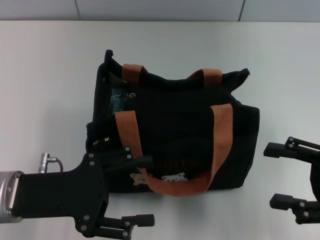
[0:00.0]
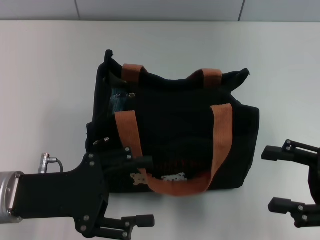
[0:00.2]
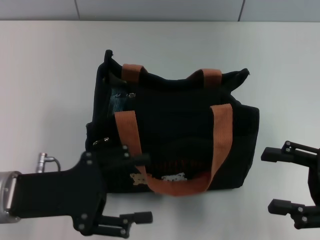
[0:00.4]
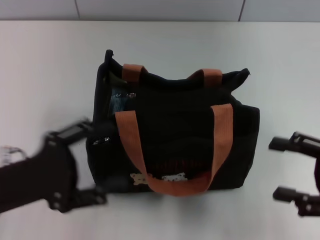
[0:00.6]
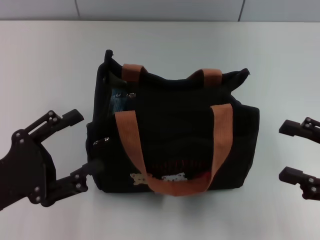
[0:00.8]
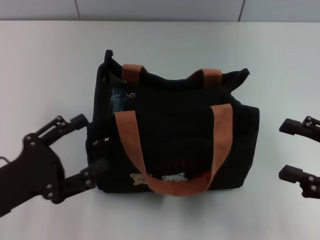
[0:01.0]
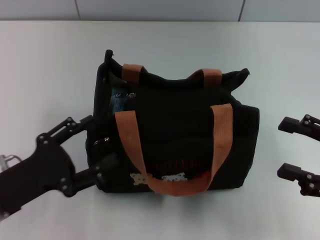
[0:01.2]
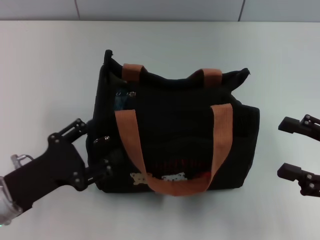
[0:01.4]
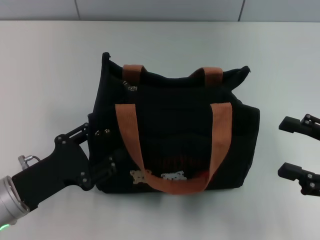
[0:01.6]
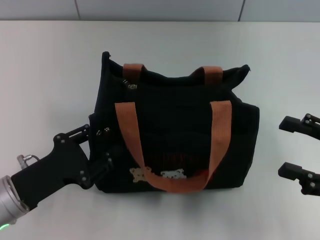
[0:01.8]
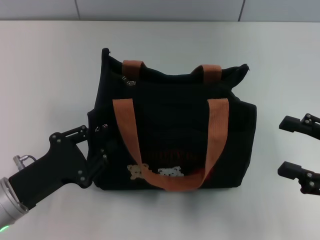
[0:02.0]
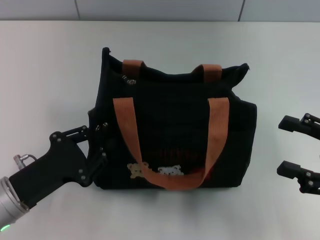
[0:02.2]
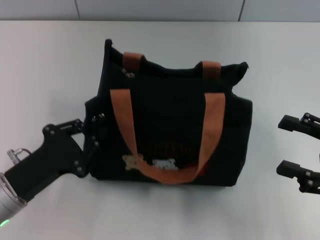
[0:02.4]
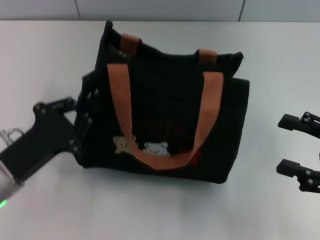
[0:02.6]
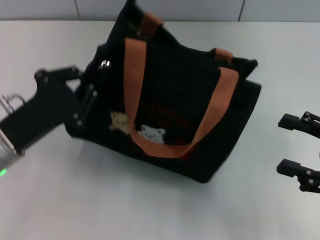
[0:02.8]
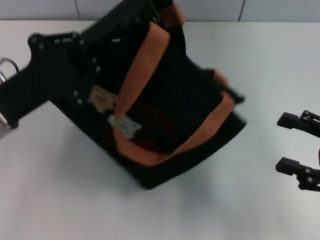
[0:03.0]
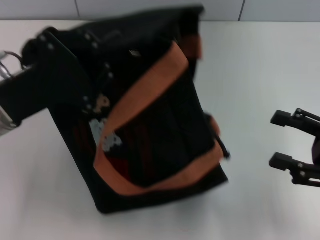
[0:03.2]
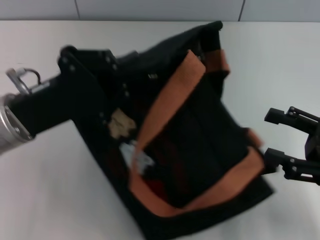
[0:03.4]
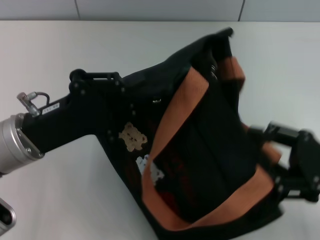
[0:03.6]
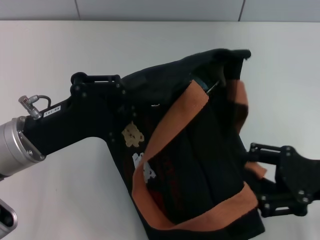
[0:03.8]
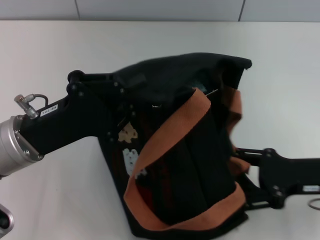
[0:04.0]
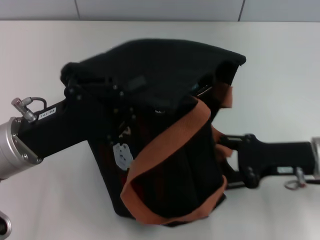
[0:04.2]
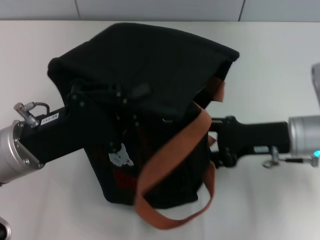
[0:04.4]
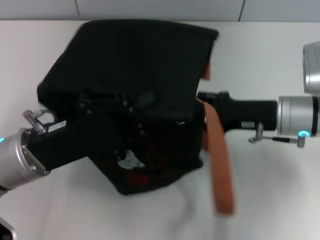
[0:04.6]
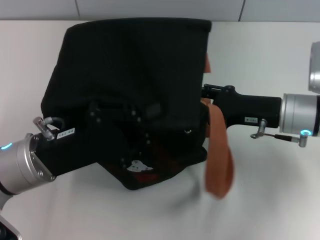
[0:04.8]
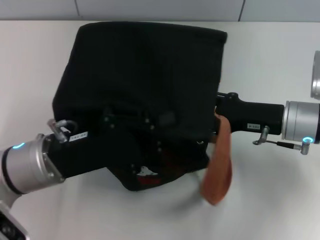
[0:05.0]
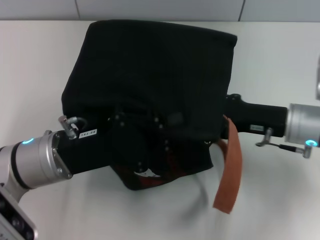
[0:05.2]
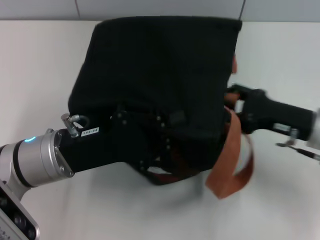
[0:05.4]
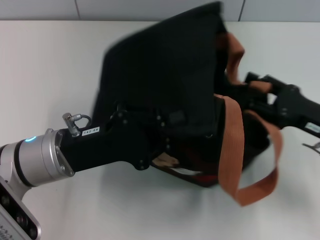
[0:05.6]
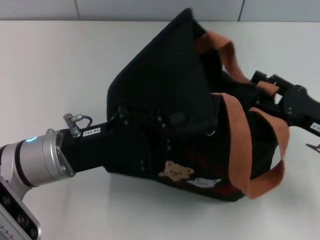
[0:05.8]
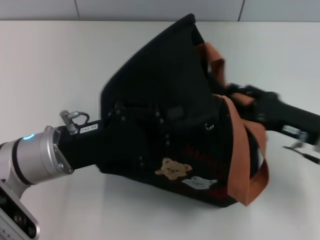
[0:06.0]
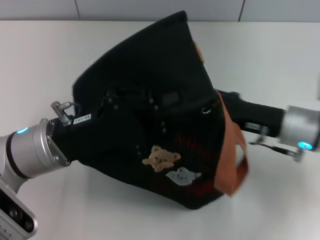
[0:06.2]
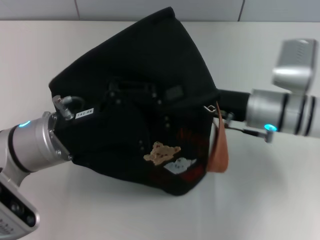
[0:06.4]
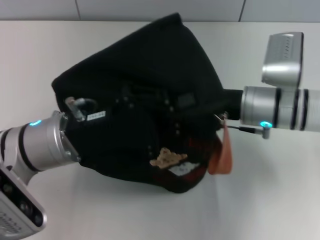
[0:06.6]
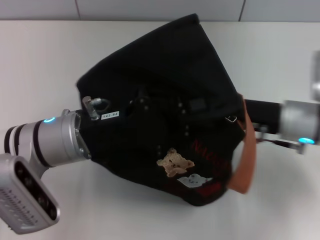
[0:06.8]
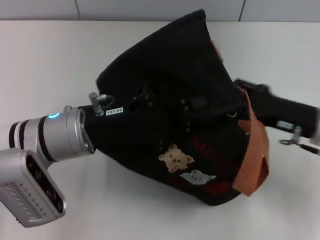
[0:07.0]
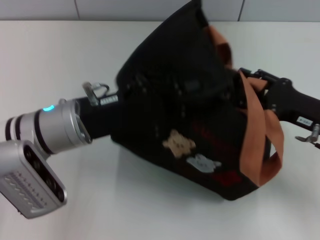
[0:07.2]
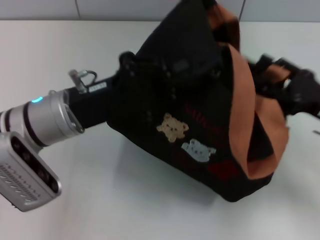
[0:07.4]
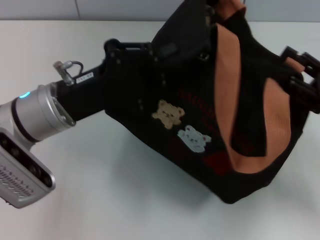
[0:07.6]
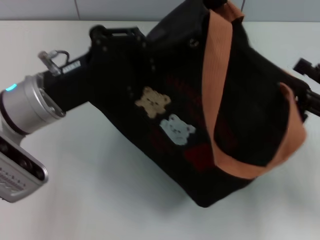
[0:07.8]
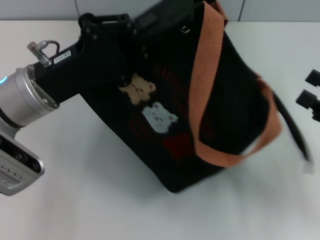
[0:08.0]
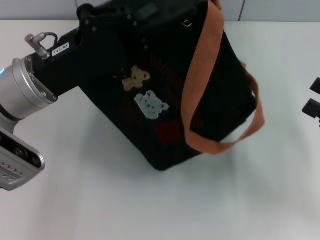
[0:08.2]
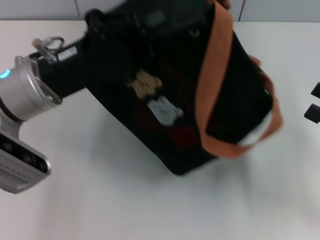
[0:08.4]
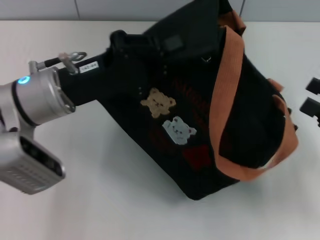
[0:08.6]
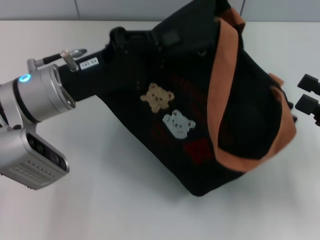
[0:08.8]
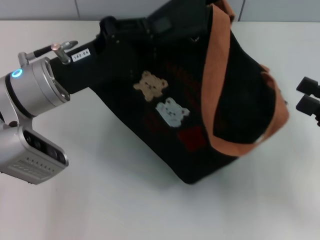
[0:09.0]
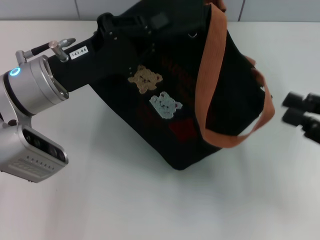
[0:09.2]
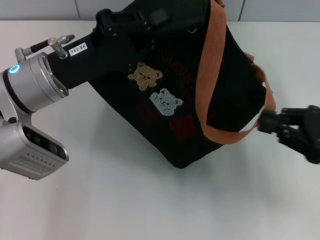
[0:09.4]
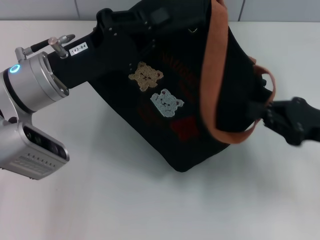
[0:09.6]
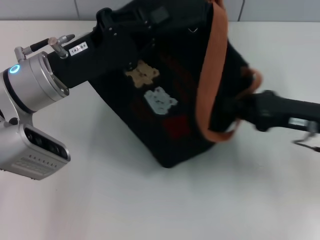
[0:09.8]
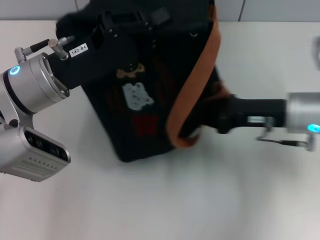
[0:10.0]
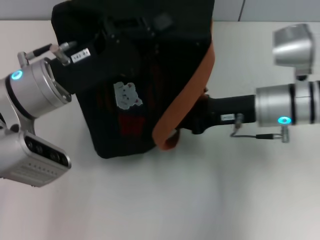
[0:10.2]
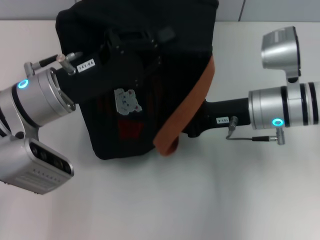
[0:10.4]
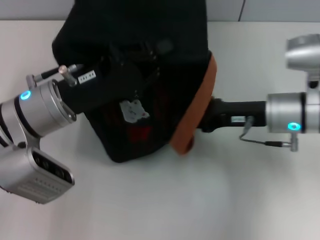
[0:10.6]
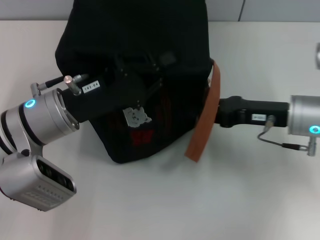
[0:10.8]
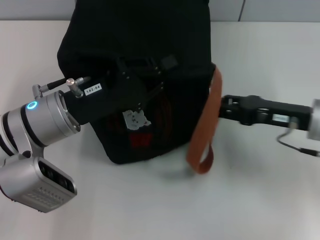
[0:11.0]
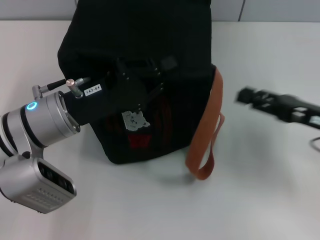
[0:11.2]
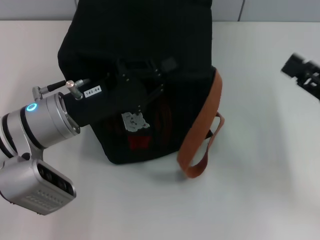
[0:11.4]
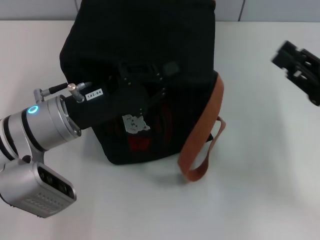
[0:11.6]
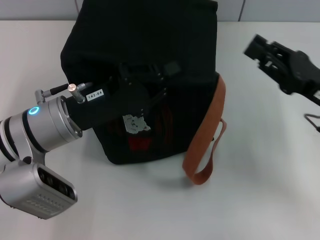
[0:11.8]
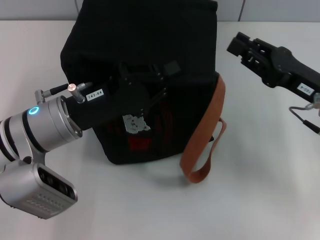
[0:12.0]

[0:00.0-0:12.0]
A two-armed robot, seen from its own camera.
0:00.0 to 0:01.6: The left gripper heads downward, covering roughly 5 cm.
0:01.6 to 0:03.0: The left gripper travels upward and forward by some 10 cm, and closes up.
0:03.0 to 0:04.4: The right gripper moves to the left and forward, about 15 cm.
0:06.0 to 0:07.6: The right gripper moves to the right, some 5 cm.
0:09.0 to 0:10.4: The right gripper moves to the left and forward, approximately 20 cm, and closes up.
0:10.4 to 0:12.0: The right gripper travels to the right by approximately 10 cm, and opens its fingers.

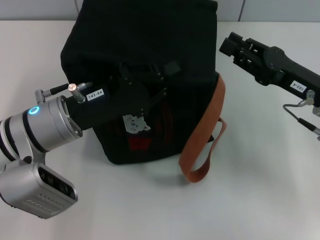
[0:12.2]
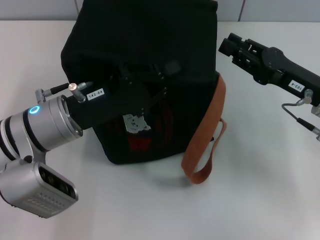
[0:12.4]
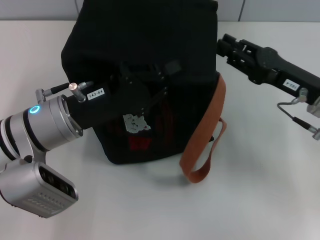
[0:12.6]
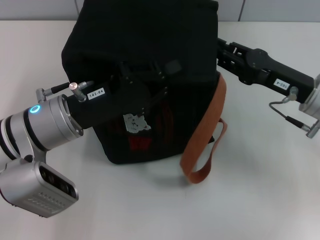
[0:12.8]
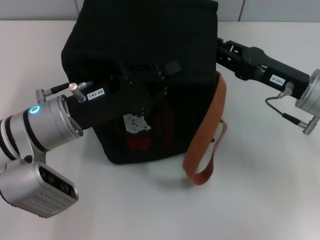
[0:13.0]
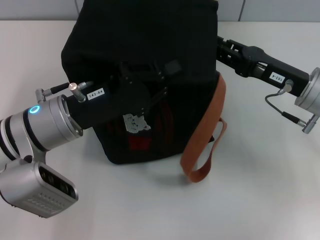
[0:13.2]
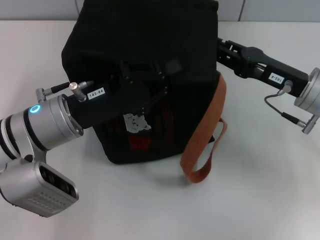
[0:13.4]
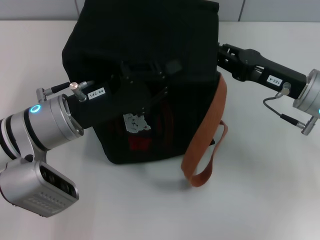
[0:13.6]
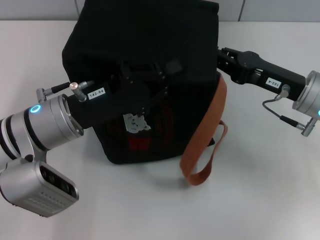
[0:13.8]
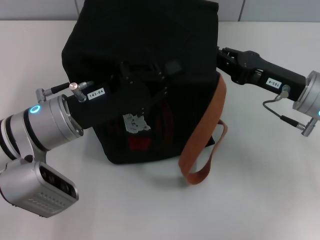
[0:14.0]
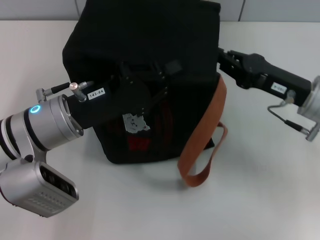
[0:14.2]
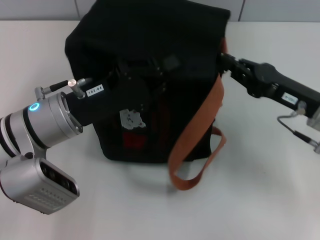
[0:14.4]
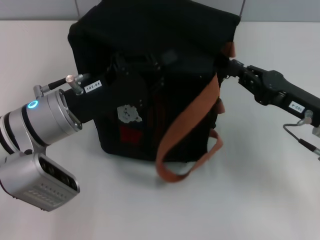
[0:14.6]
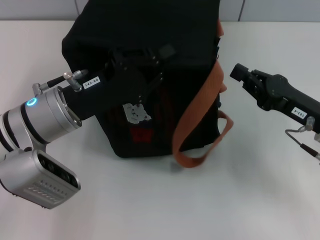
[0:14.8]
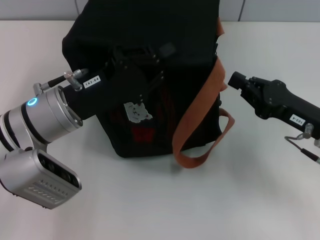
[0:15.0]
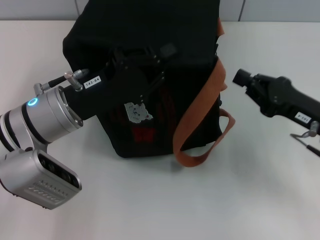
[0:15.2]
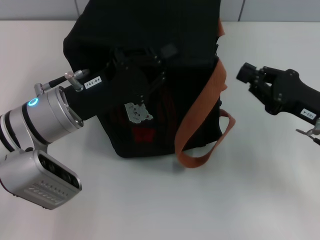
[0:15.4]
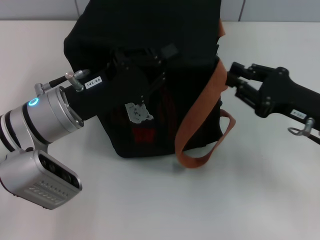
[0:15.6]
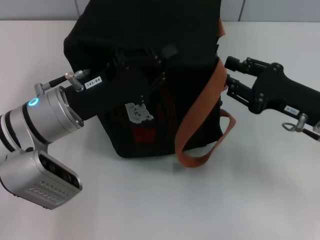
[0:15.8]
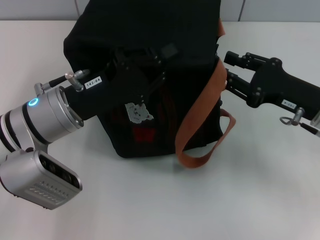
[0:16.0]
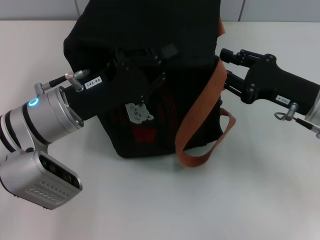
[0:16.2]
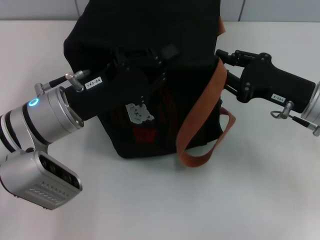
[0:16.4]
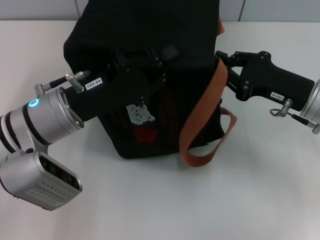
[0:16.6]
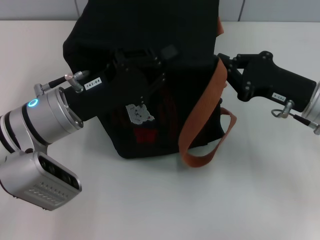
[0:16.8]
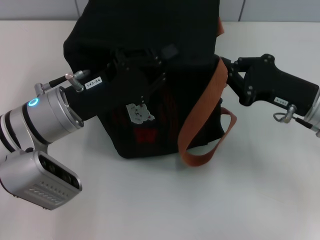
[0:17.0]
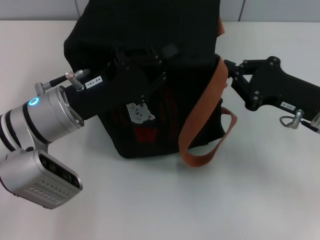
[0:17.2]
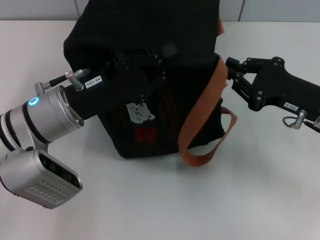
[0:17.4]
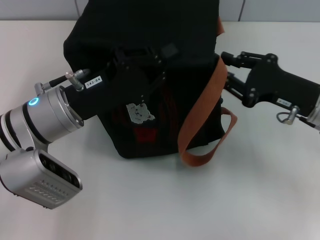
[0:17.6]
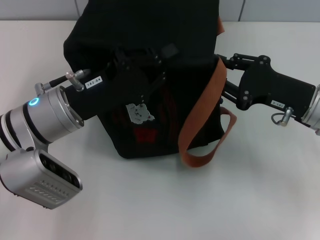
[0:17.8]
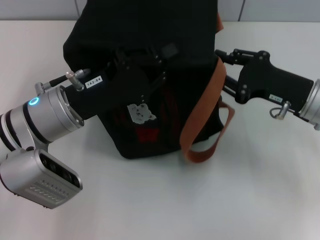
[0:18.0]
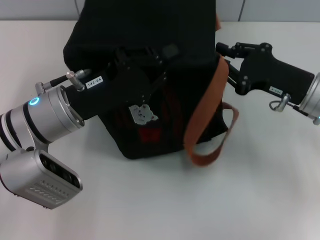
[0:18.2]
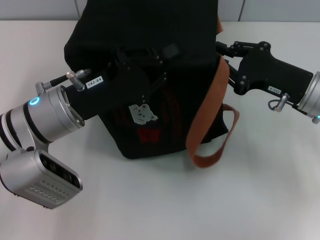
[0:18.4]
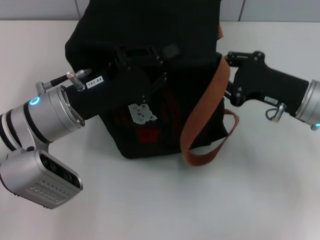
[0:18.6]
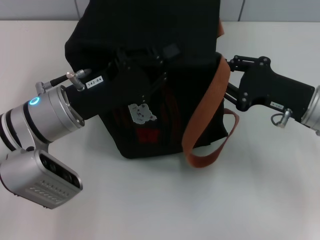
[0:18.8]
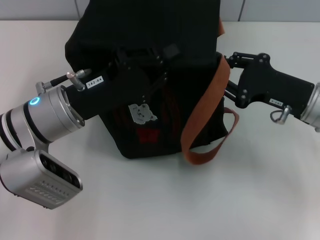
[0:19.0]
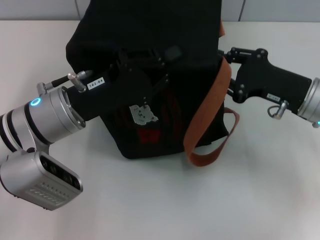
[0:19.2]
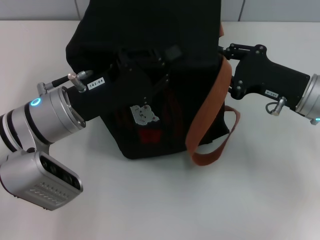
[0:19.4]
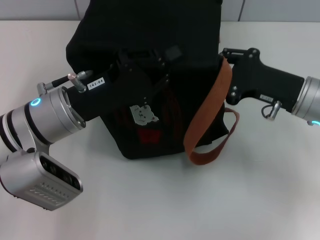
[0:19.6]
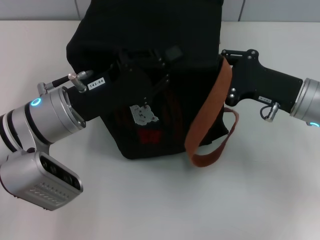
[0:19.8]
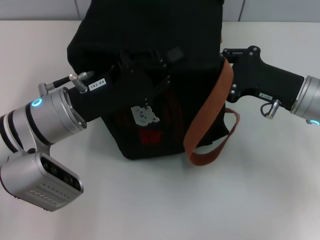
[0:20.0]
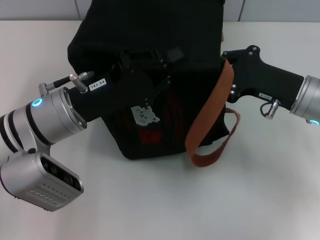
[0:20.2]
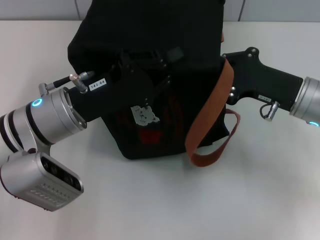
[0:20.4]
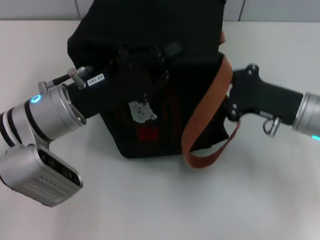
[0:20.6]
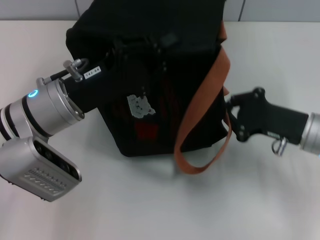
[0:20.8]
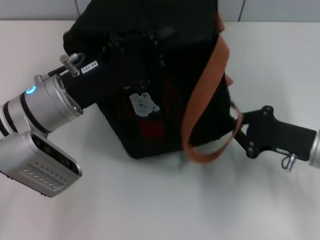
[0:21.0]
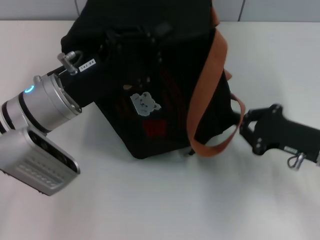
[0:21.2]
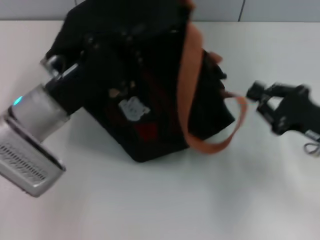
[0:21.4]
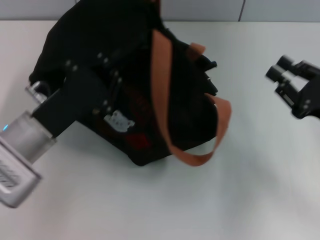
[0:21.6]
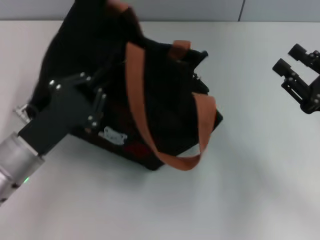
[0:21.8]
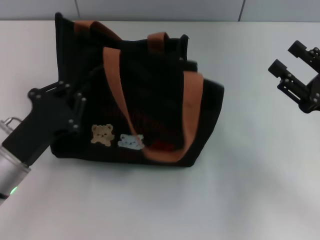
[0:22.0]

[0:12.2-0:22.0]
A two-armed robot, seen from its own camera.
Step, 0:12.2 to 0:21.2: Pull open the zipper with your right hand.
0:12.2 to 0:13.6: There are only small adjustments of the grippers.
0:13.6 to 0:15.0: The right gripper is displaced backward by about 5 cm, and closes its fingers.
0:15.0 to 0:16.4: The right gripper opens its fingers.
0:16.4 to 0:17.8: The right gripper closes, then reopens.
0:17.8 to 0:19.2: The grippers stay close to where they were, moving slightly.
0:19.2 to 0:20.6: The right gripper closes up.
0:20.6 to 0:22.0: The left gripper heads to the left, backward and downward, covering roughly 10 cm; the right gripper travels to the right and backward by about 10 cm, and opens up.
